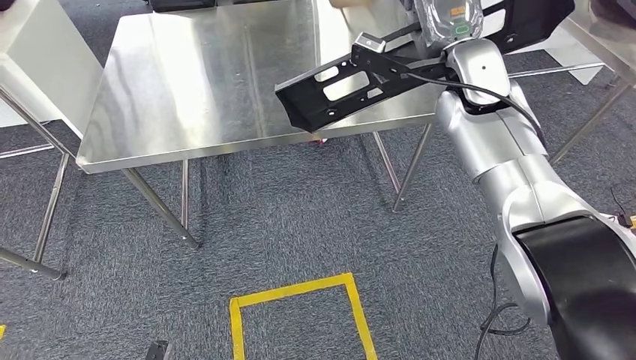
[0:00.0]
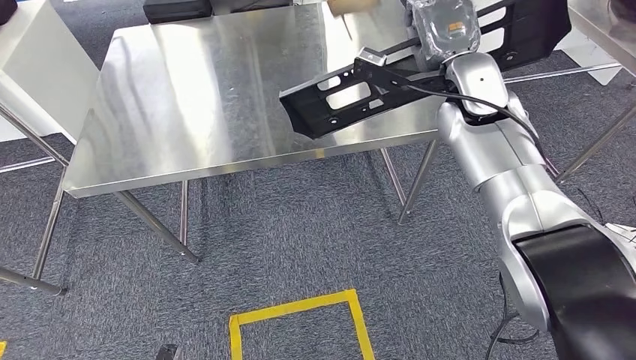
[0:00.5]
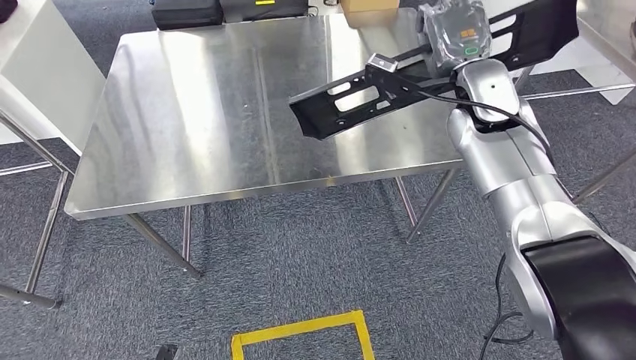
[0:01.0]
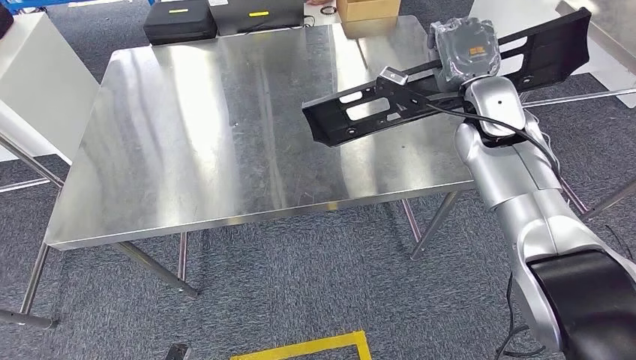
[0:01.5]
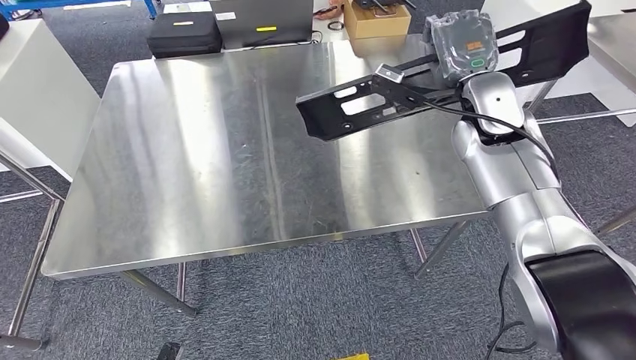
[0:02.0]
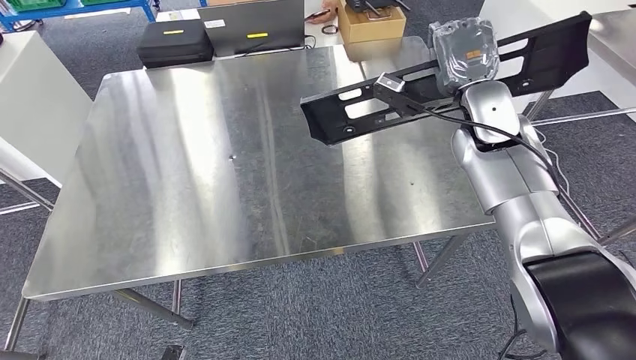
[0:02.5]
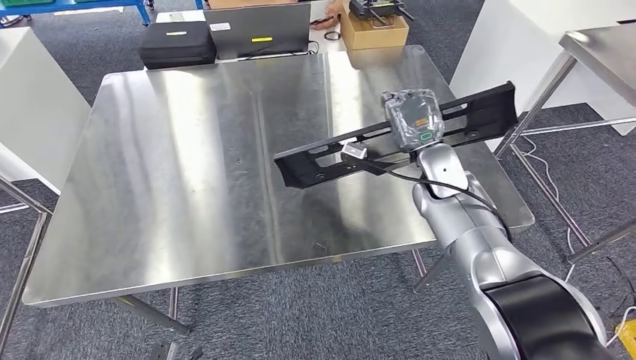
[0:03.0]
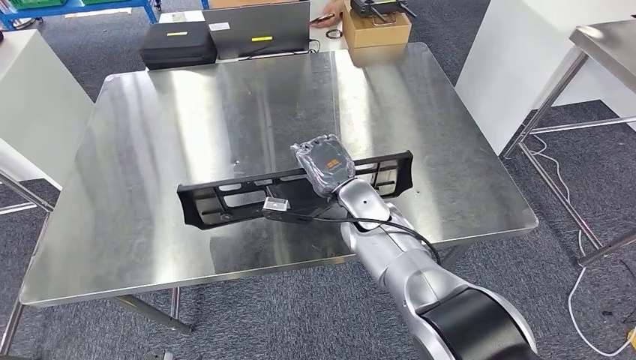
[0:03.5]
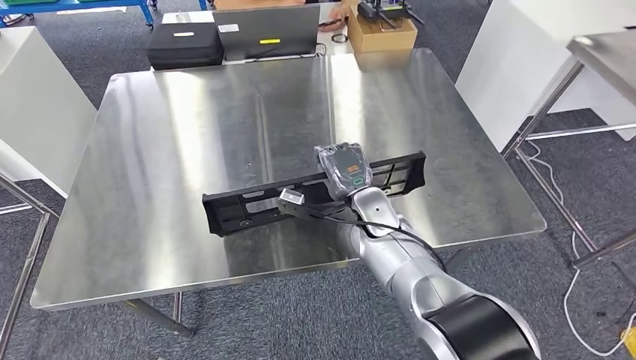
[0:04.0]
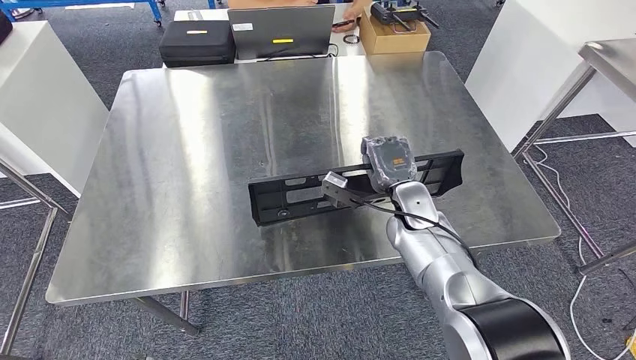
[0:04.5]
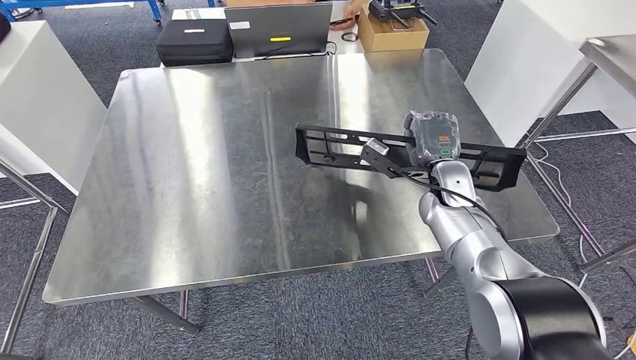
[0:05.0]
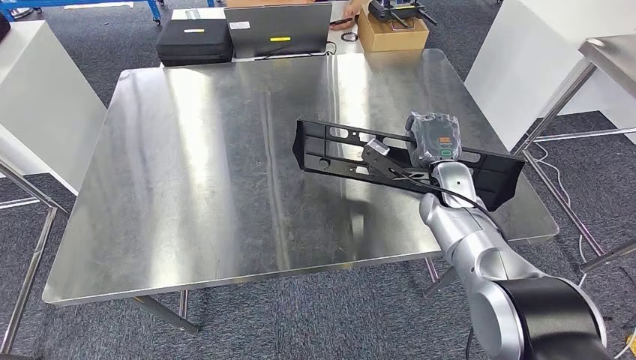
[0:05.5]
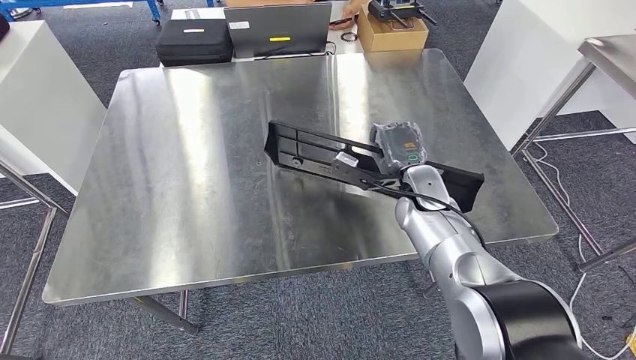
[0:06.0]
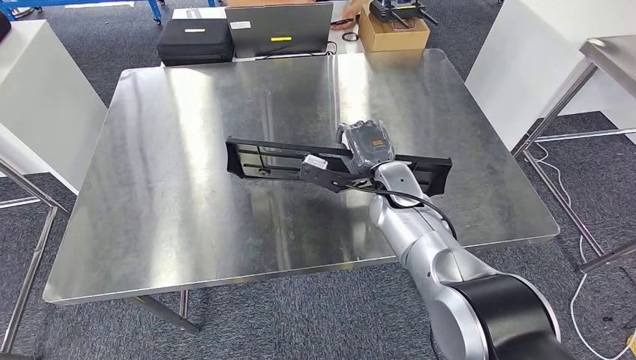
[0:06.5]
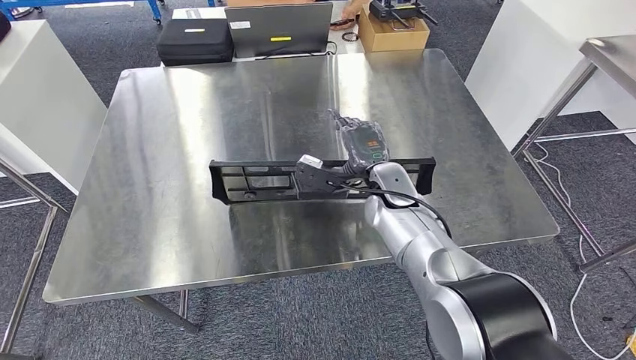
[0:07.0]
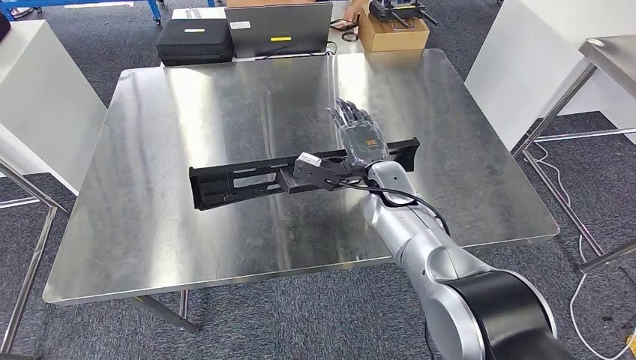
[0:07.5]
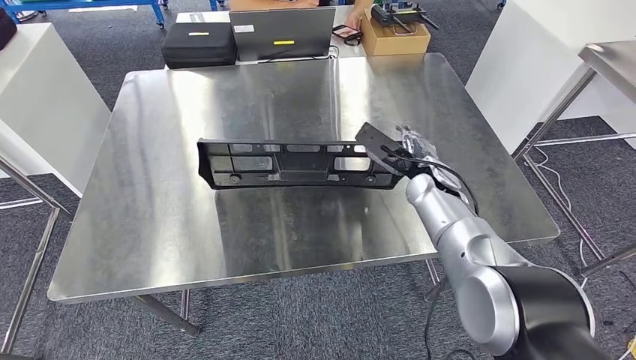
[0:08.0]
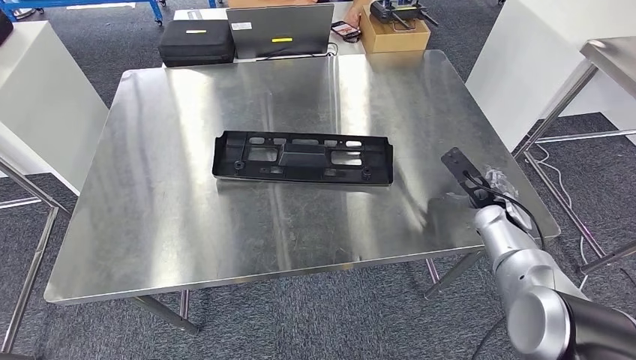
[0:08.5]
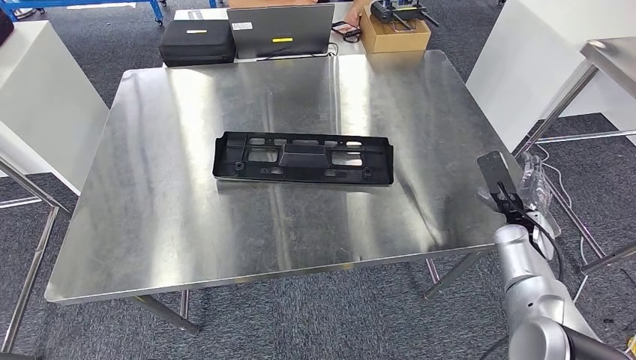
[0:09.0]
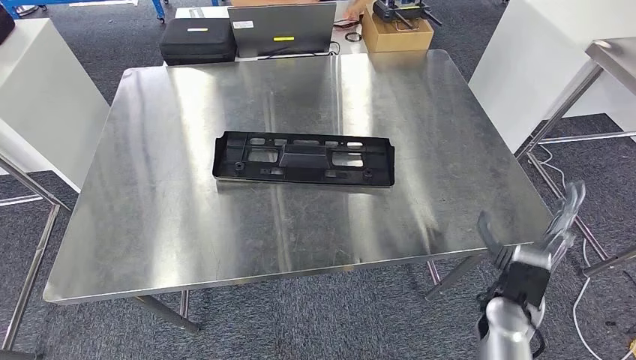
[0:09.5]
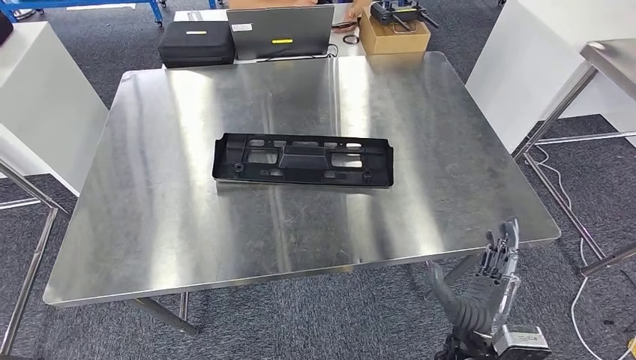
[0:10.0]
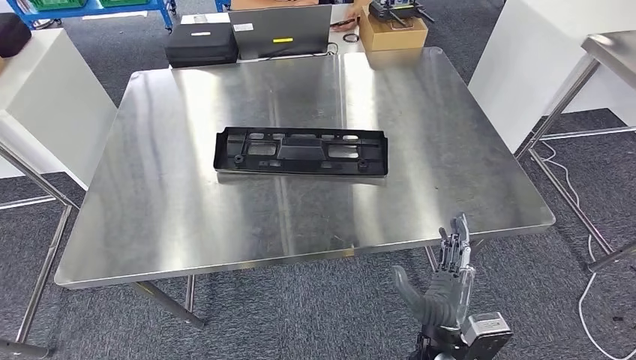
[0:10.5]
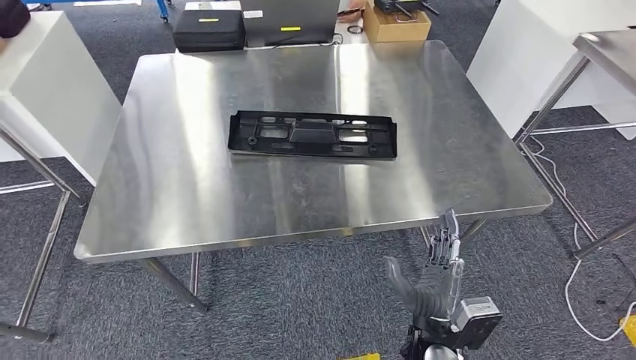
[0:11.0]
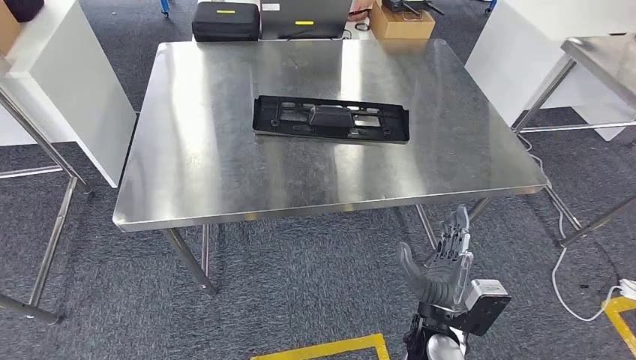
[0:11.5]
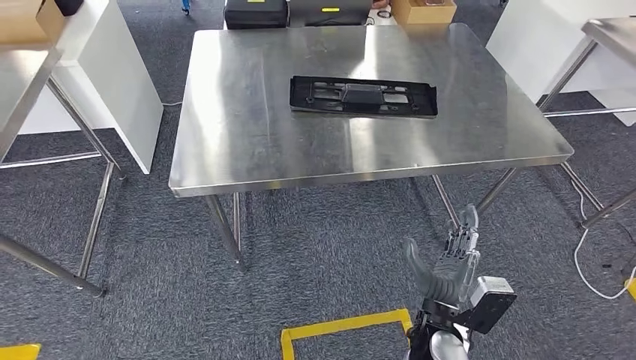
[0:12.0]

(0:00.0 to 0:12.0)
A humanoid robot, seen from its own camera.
Step, 0:00.0 - 0:08.5: Insert the large material into the corresponding slot on the workbench.
0:08.0 - 0:10.0: The right hand shifts about 25 cm backward.

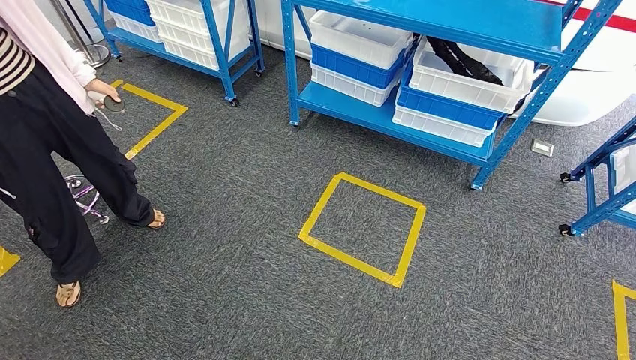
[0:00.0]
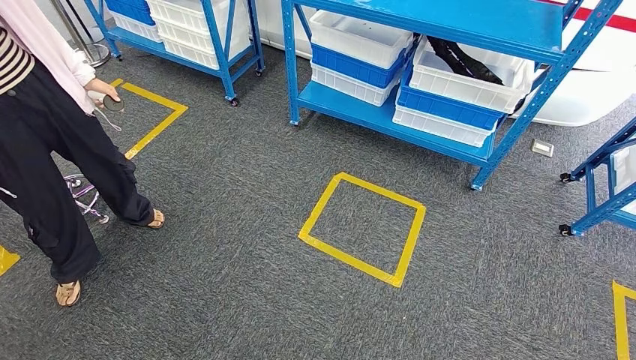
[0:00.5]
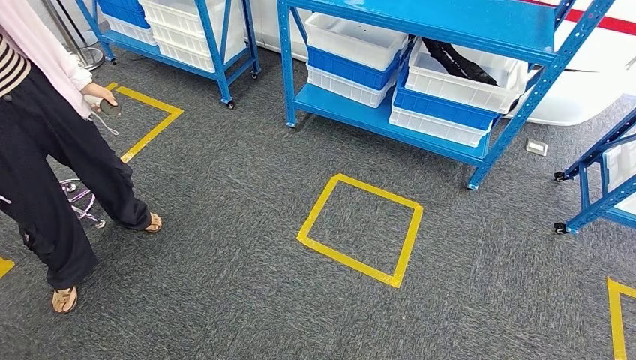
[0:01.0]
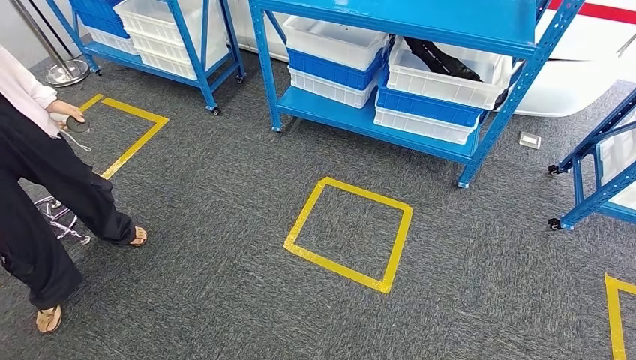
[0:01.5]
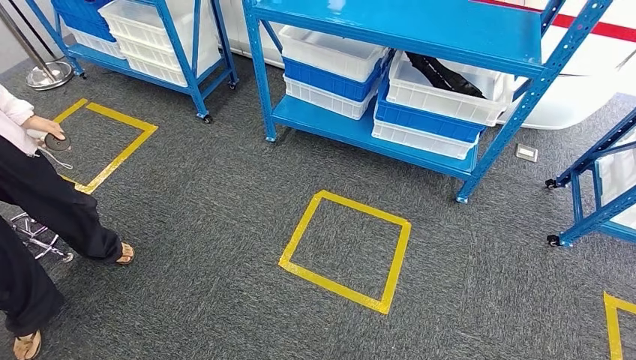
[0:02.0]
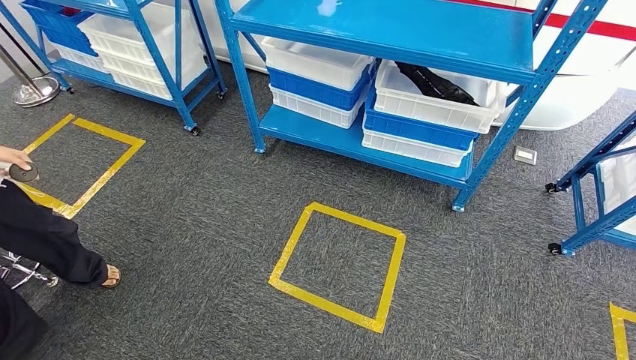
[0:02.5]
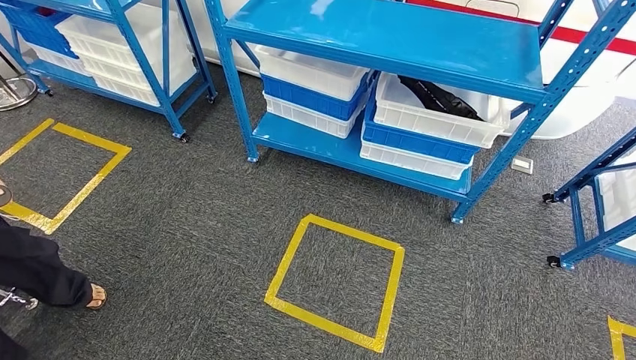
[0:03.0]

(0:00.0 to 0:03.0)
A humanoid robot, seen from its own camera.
Step, 0:00.0 - 0:03.0: Return to the initial position at the shelf.
